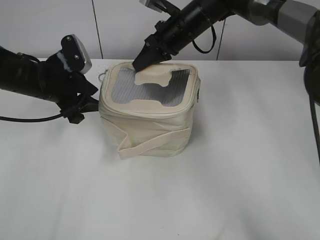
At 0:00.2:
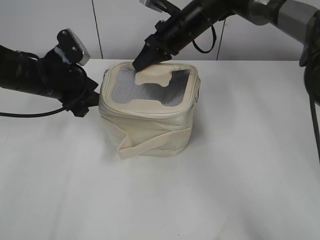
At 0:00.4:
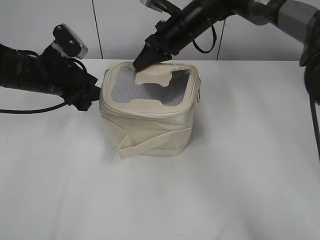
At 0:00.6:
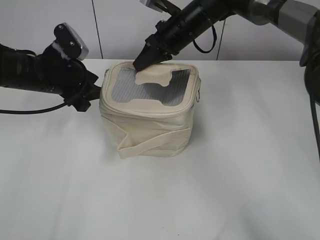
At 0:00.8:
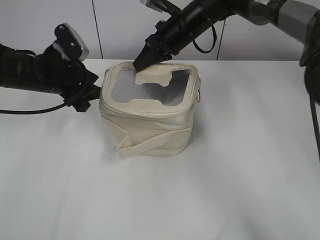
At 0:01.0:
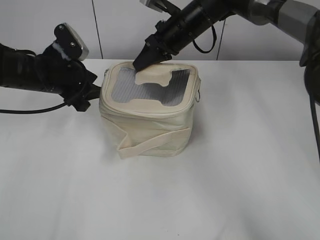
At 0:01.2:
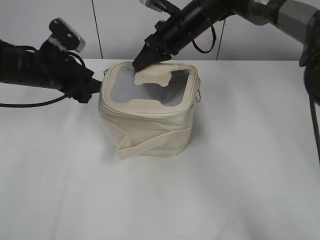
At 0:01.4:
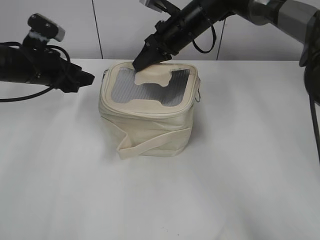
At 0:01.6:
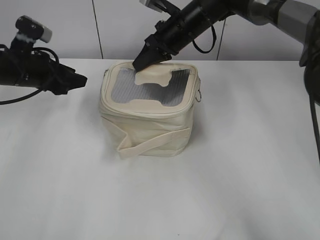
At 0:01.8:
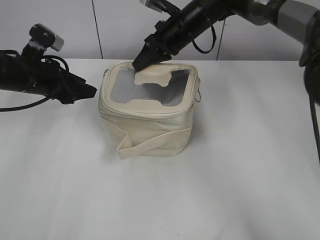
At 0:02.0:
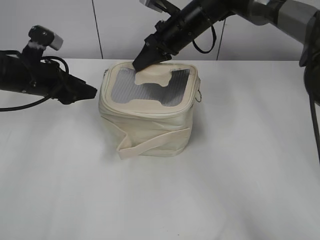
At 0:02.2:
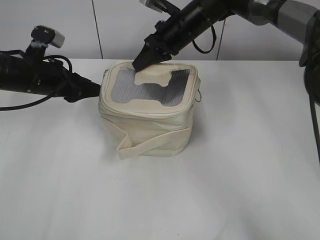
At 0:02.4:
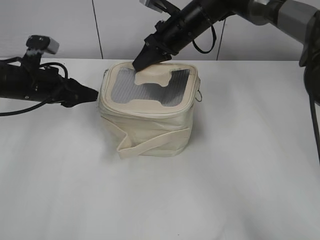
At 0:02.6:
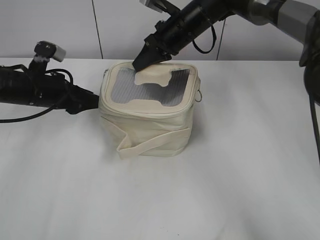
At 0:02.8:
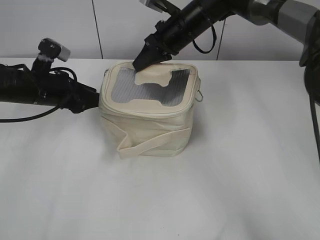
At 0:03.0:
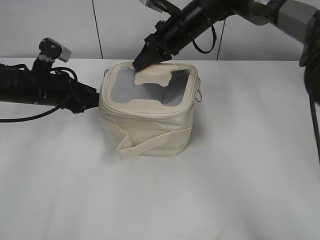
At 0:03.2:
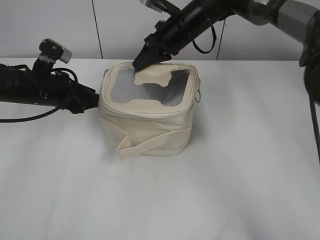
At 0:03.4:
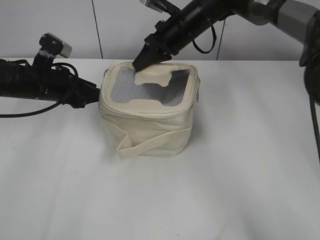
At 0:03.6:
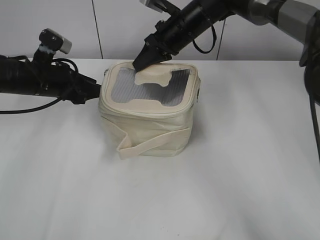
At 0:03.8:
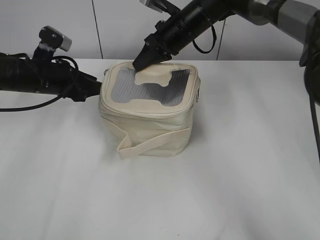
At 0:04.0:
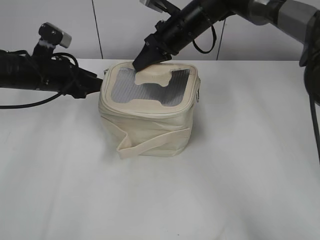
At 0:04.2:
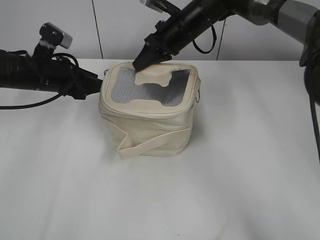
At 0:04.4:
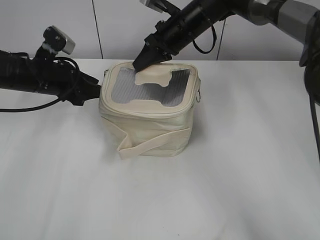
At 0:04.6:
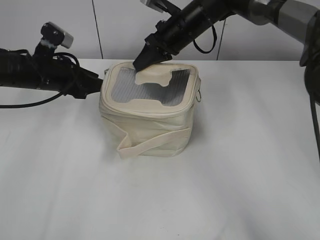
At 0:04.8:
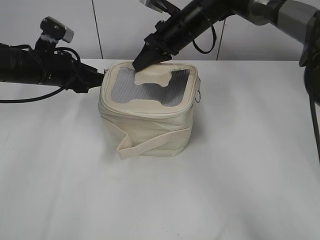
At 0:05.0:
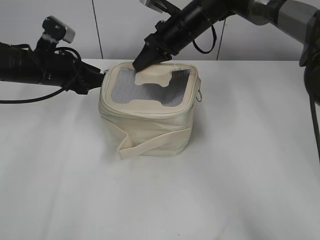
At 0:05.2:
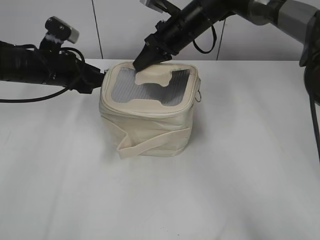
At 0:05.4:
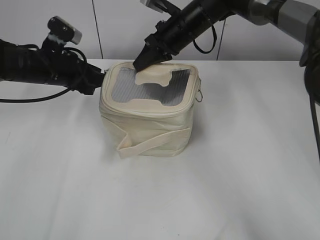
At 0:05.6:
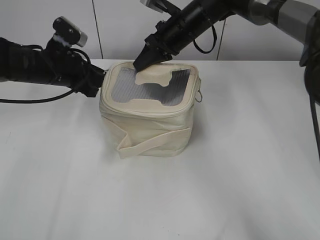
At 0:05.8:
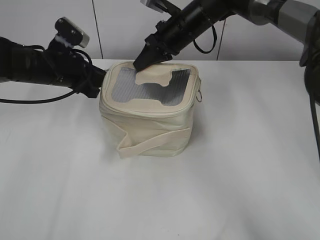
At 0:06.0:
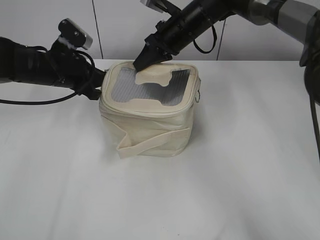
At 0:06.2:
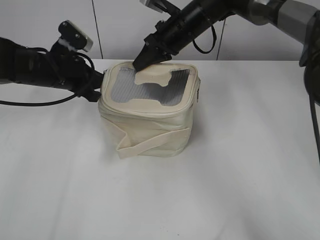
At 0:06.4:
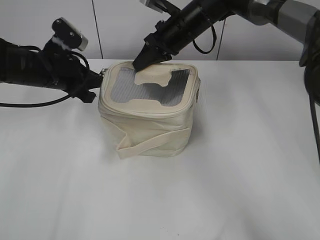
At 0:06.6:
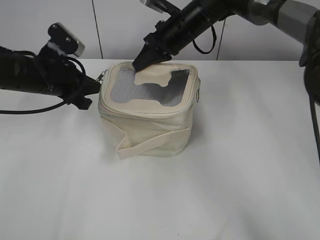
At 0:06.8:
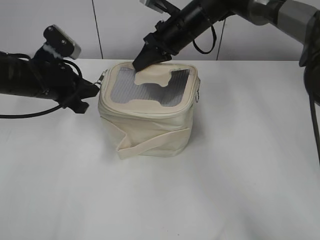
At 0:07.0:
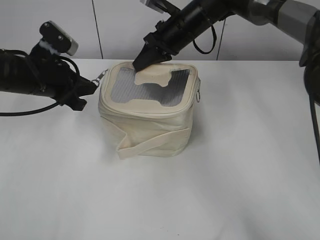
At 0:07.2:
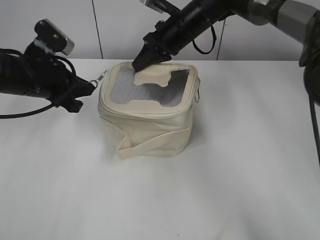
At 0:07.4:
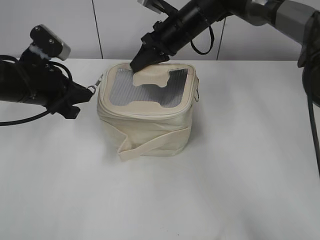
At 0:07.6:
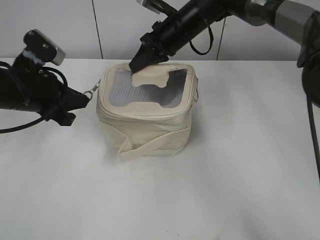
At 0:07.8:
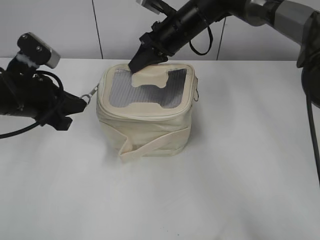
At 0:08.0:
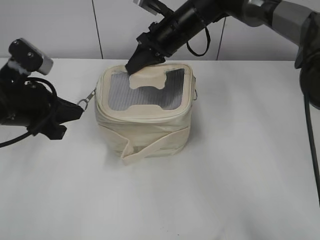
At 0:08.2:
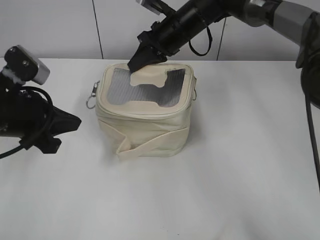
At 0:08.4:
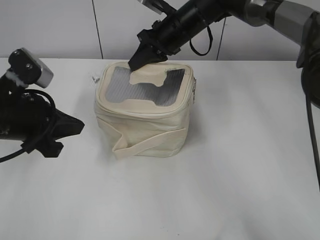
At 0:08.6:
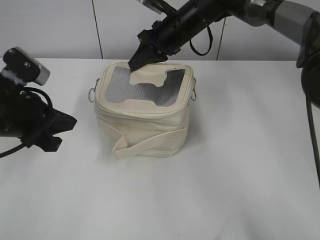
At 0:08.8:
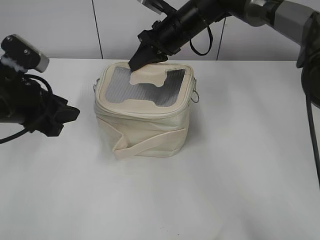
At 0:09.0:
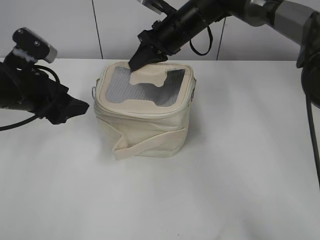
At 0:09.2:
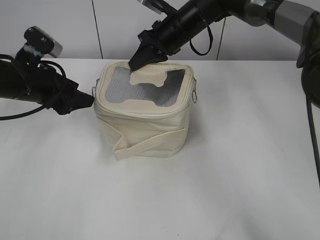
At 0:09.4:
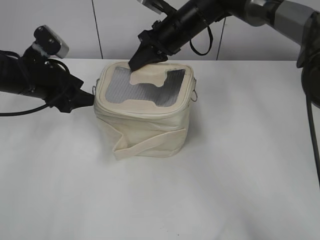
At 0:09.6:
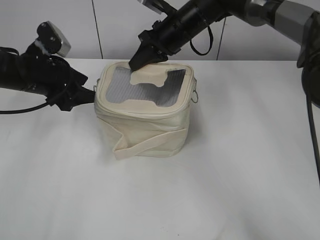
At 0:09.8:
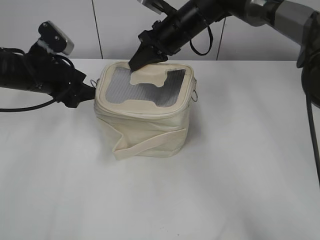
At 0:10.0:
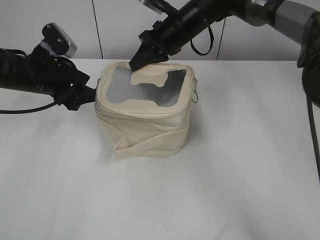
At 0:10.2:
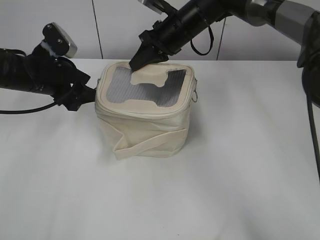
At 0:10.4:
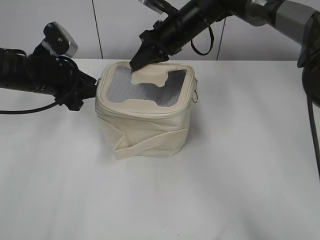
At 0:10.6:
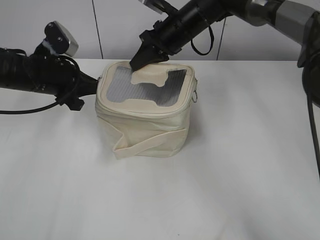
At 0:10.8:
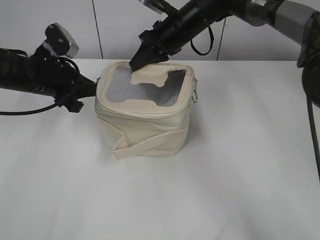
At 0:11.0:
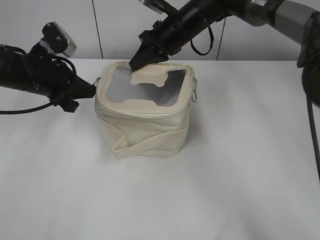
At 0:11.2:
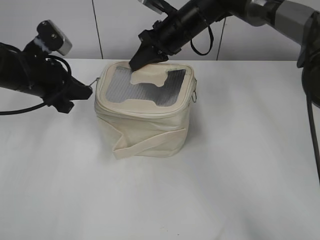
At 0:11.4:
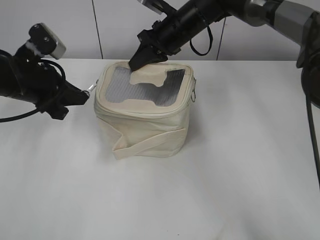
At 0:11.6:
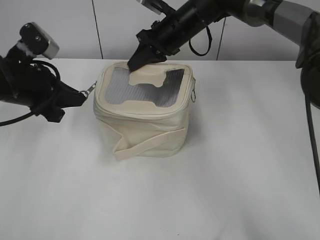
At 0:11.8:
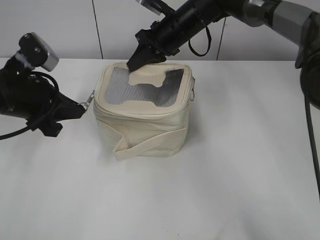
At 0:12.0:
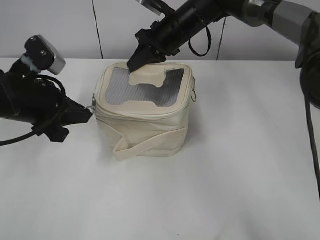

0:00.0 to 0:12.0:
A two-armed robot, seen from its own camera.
0:00.0 to 0:01.6: The left gripper ends up roughly 5 cm from where it was.
0:01.6 to 0:04.4: The grippers make only small movements.
0:04.4 to 0:06.0: The left gripper closes.
0:06.0 to 0:07.6: The left gripper heads backward, covering some 10 cm.
0:07.6 to 0:09.0: The left gripper opens up.
0:09.0 to 0:10.4: The left gripper shifts roughly 5 cm forward, and closes up.
0:10.4 to 0:12.0: The left gripper travels backward by about 10 cm, and closes.

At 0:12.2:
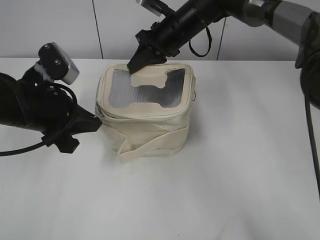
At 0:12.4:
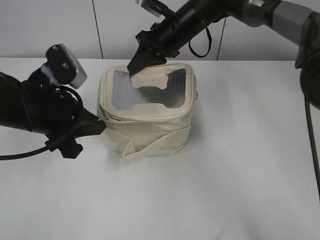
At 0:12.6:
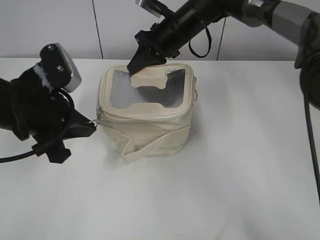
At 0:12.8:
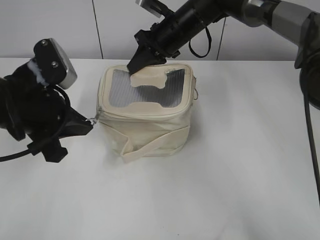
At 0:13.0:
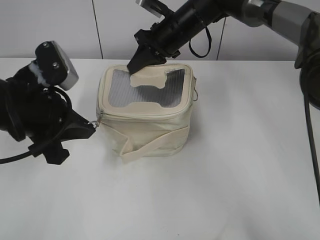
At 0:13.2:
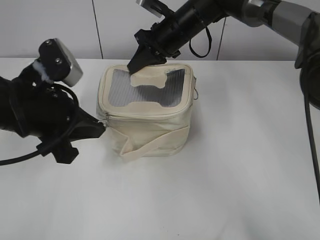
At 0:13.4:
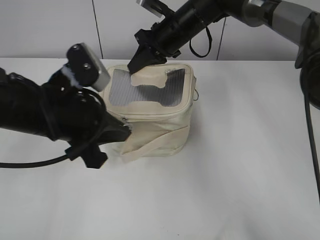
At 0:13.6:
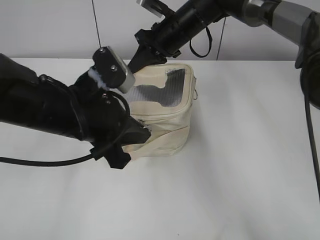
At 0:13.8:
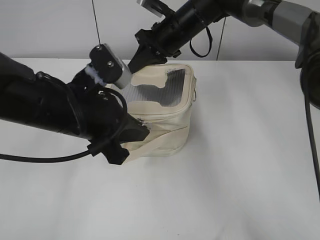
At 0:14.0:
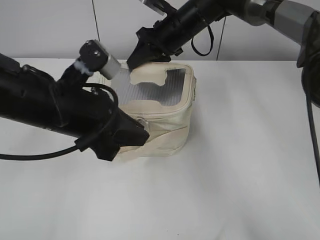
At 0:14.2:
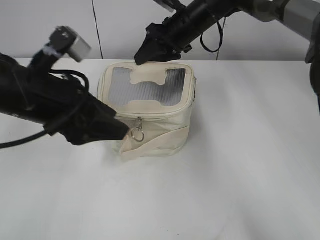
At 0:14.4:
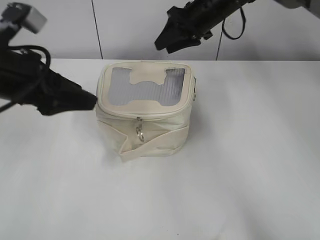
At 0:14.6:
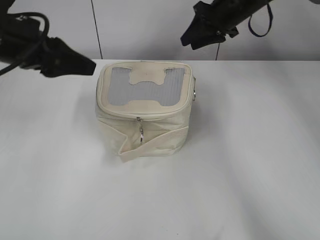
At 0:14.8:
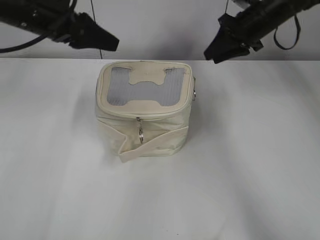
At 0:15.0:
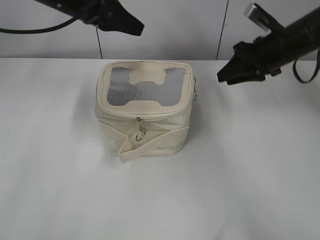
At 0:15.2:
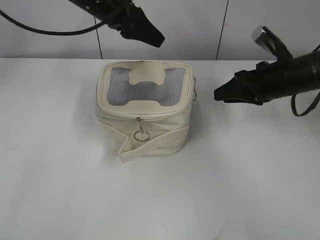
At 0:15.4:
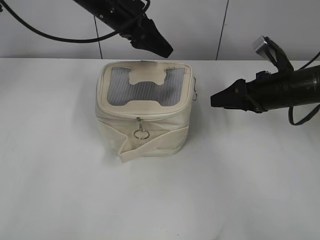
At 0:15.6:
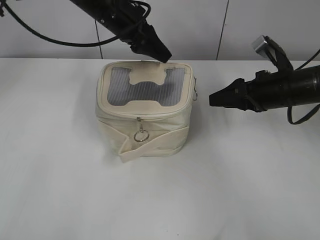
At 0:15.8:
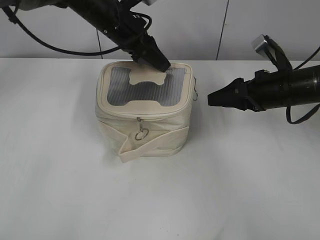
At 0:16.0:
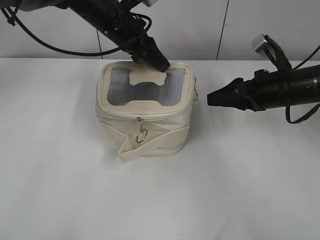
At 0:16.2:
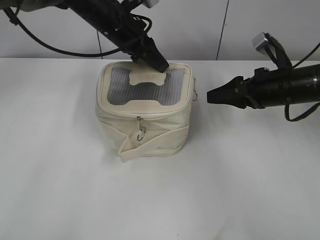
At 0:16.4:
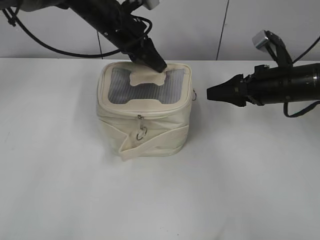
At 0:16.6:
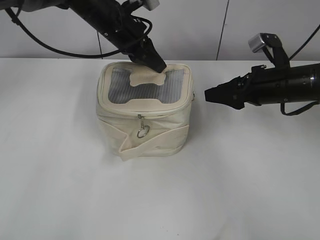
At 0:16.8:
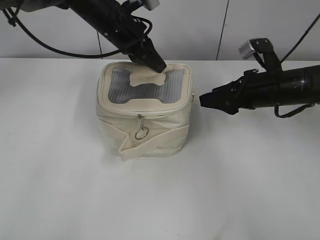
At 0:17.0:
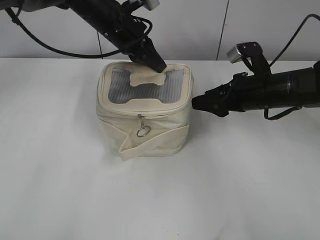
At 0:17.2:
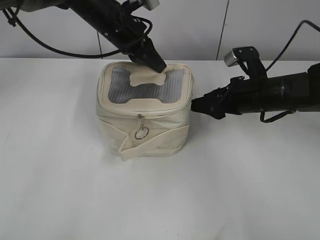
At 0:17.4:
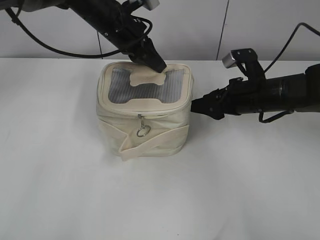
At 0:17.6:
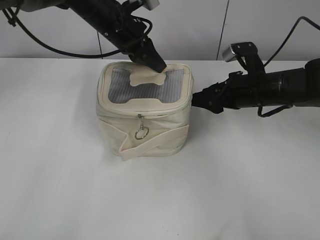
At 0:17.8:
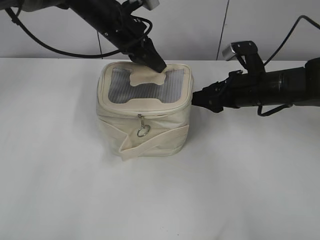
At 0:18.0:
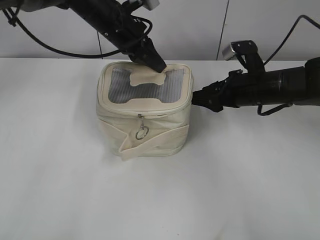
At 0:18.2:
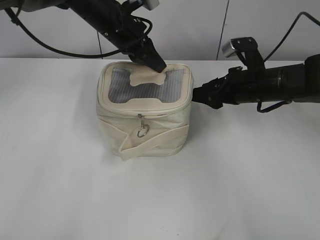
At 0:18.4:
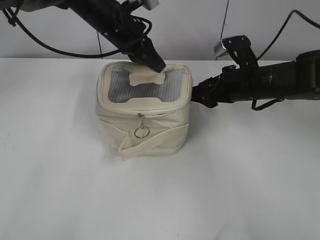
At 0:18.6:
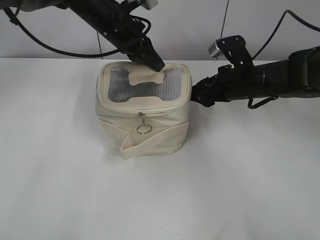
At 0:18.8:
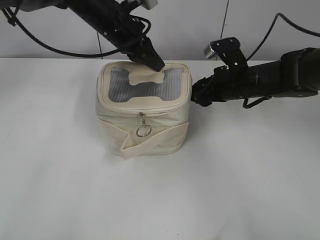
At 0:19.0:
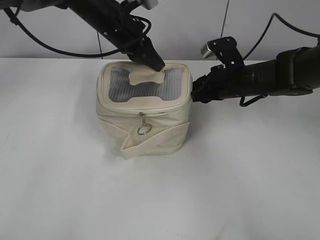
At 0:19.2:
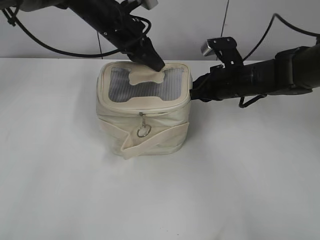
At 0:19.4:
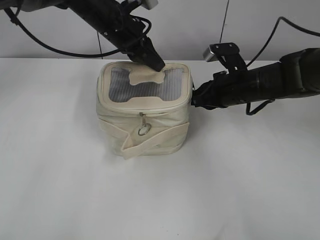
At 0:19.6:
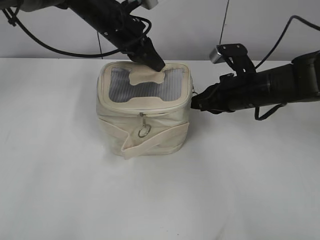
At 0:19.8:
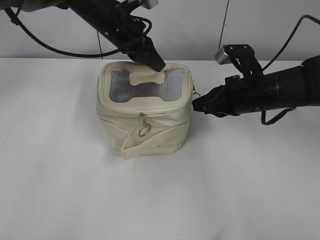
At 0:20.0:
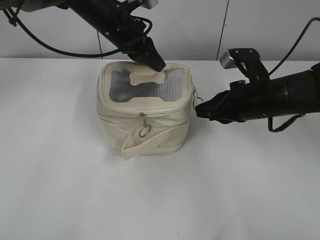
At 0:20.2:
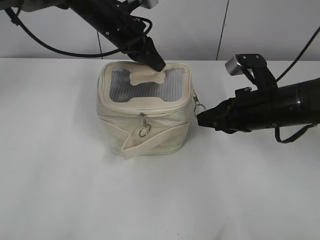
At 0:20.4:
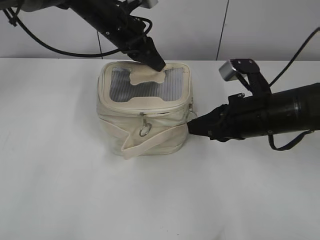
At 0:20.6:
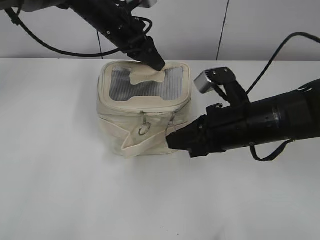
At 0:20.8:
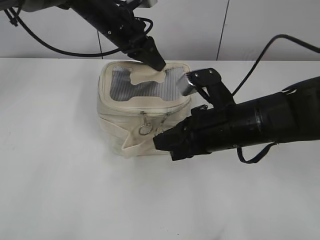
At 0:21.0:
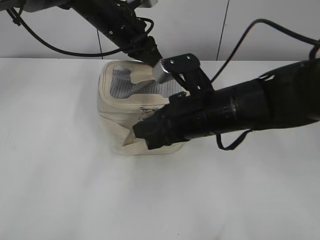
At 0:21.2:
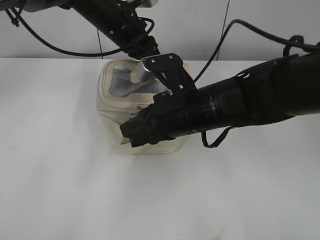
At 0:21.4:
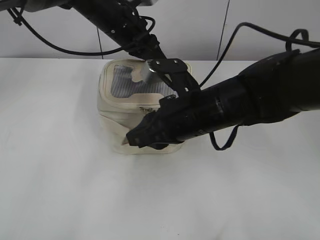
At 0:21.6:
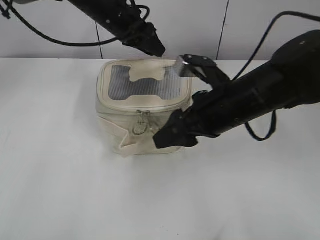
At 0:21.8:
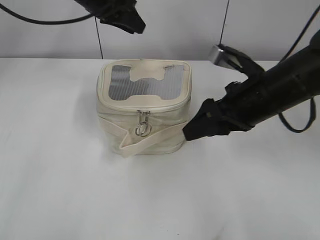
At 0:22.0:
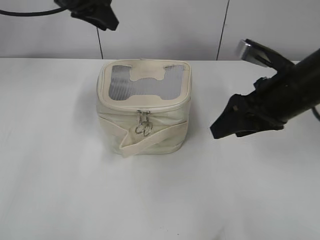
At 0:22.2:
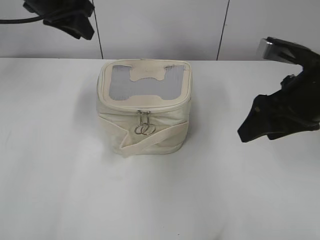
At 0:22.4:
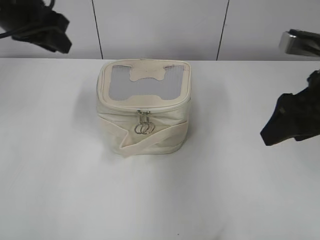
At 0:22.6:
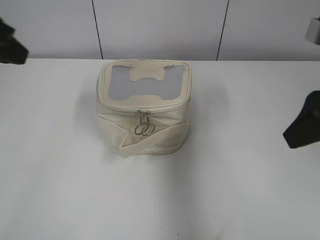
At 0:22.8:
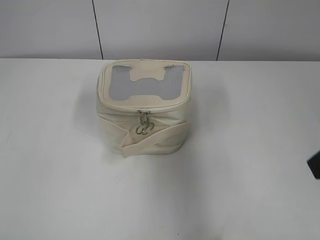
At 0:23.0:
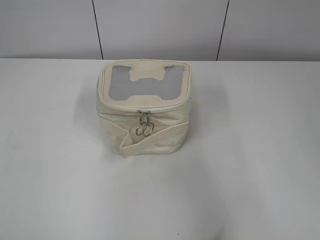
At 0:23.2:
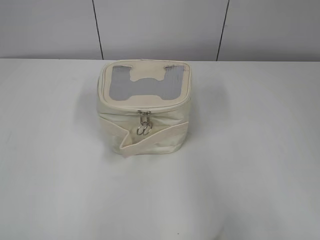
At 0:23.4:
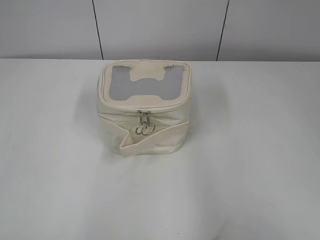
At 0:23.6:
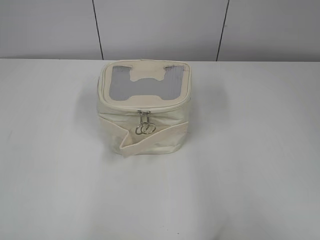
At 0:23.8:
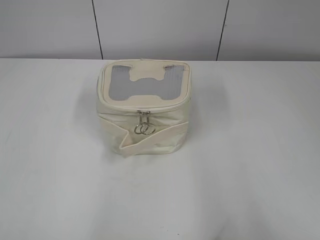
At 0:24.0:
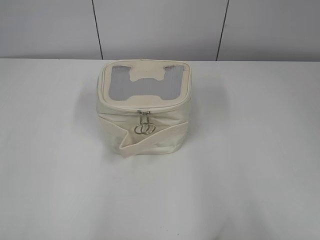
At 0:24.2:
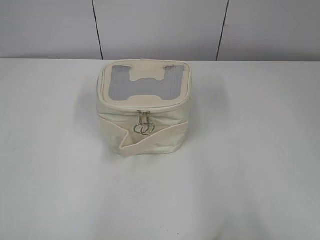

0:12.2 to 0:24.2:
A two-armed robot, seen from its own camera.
Step, 0:14.4 to 0:21.4: Zip up the bag with your right hand.
0:12.2 to 0:13.8: The left gripper goes approximately 5 cm to the right.
0:13.8 to 0:15.2: The left gripper shifts approximately 20 cm forward, and opens. Meanwhile the right gripper moves to the right and backward, roughly 20 cm, and opens.
0:15.2 to 0:16.6: The right gripper opens its fingers. The left gripper travels downward by roughly 5 cm, and closes.
0:16.6 to 0:18.2: The grippers stay close to where they were, moving slightly.
0:18.2 to 0:19.8: The right gripper closes its fingers.
0:19.8 to 0:21.2: The right gripper heads to the left and backward, covering about 15 cm.
0:21.2 to 0:22.6: The right gripper heads to the right and upward, covering about 20 cm, and opens its fingers; the left gripper travels backward, to the left and upward by roughly 30 cm, and opens up.
0:22.6 to 0:24.2: Both grippers travel together backward, some 25 cm.
